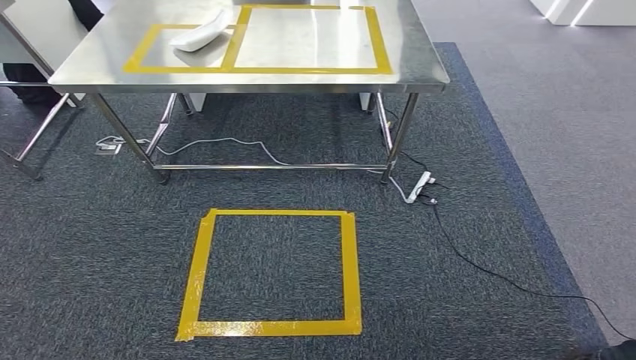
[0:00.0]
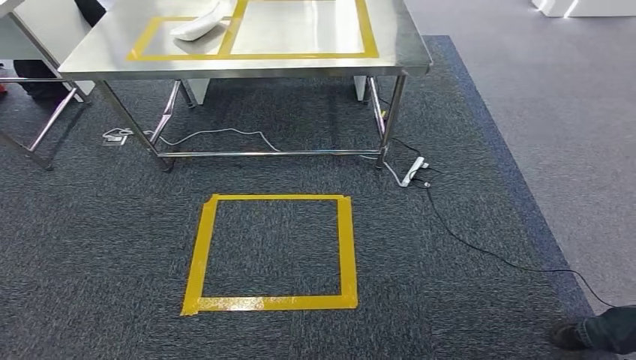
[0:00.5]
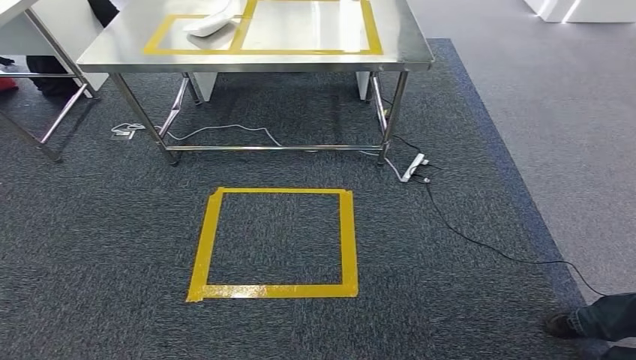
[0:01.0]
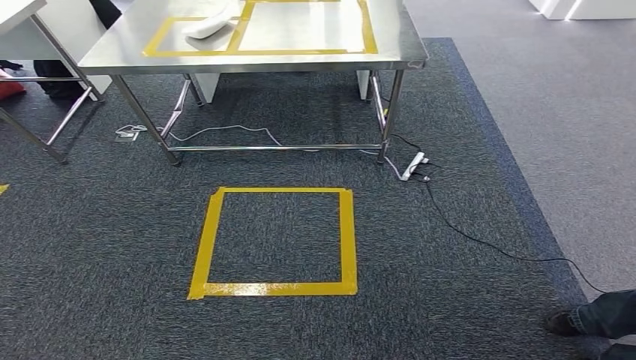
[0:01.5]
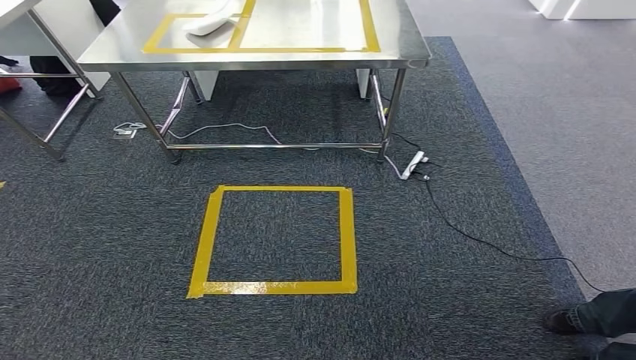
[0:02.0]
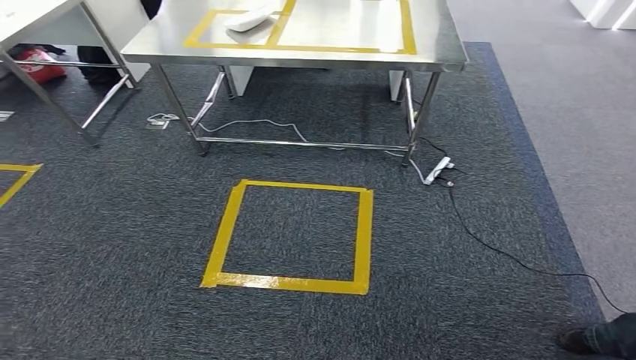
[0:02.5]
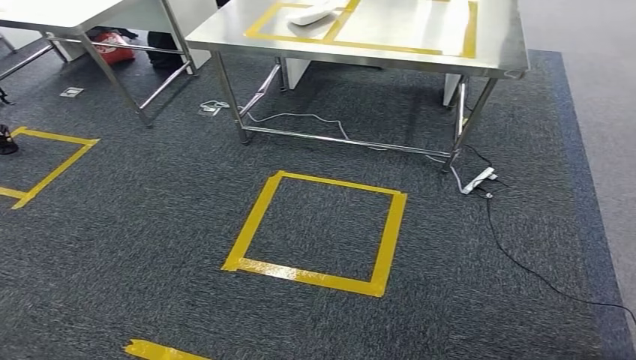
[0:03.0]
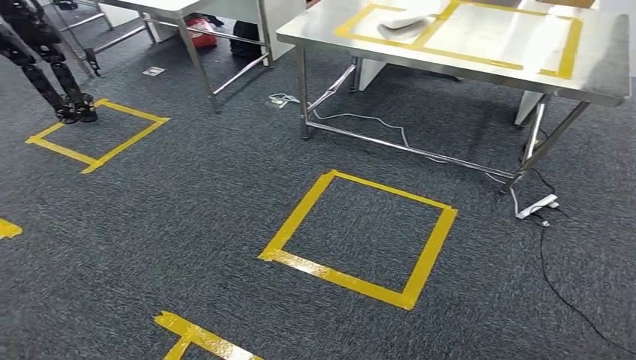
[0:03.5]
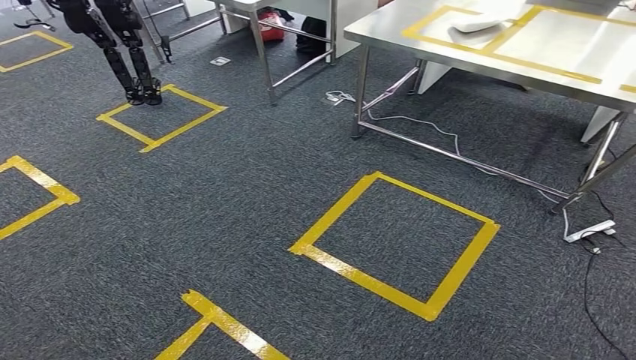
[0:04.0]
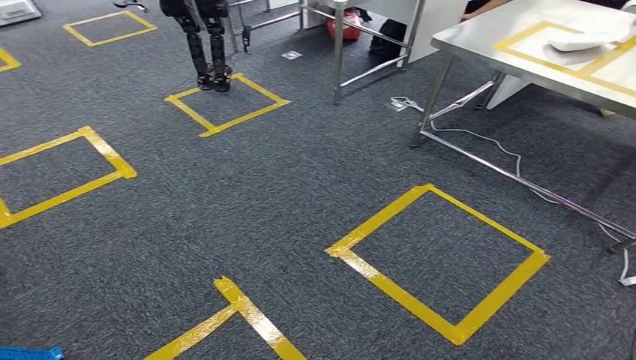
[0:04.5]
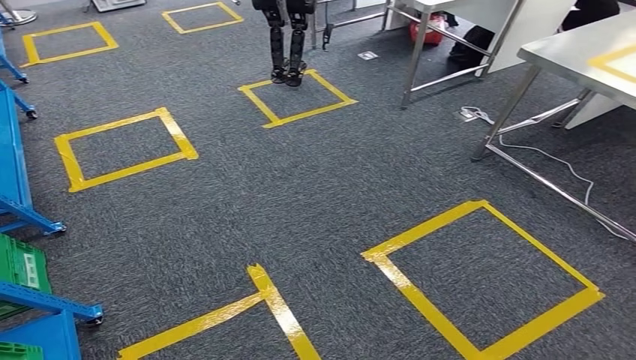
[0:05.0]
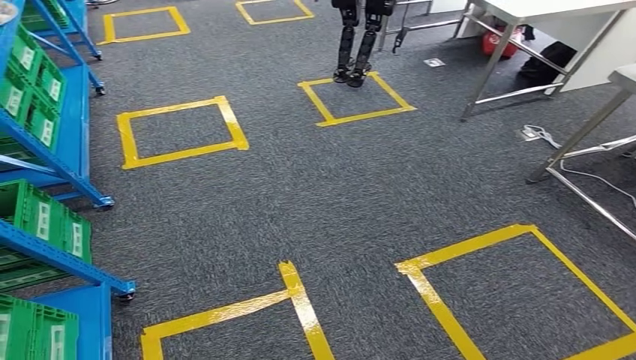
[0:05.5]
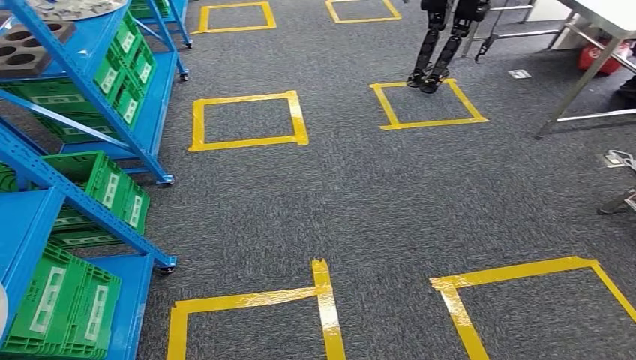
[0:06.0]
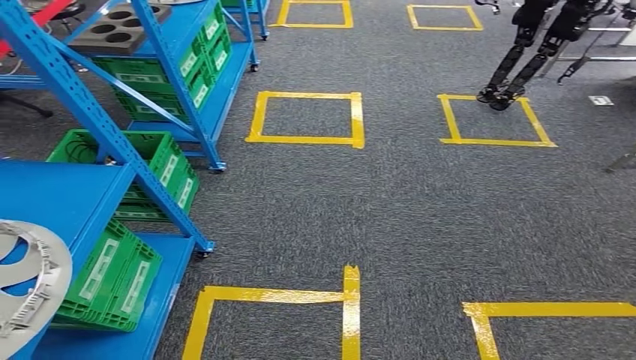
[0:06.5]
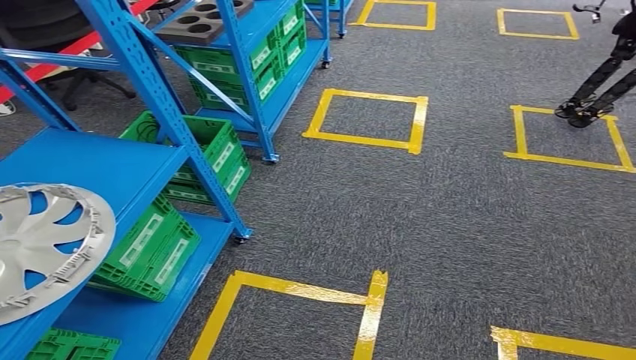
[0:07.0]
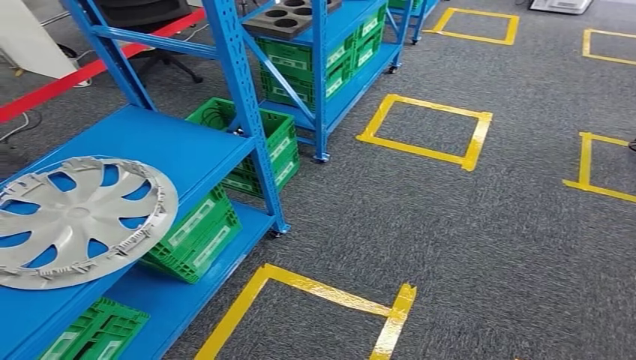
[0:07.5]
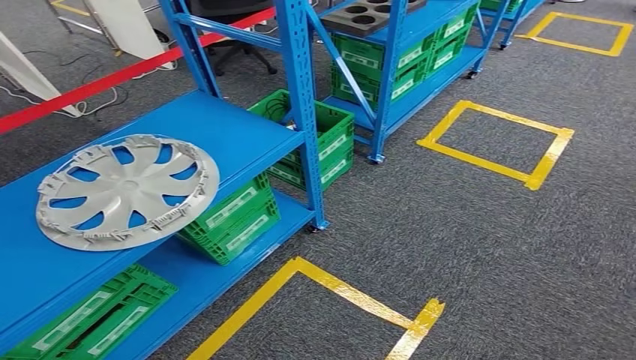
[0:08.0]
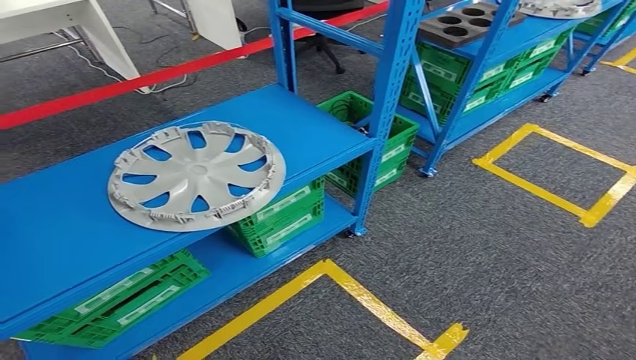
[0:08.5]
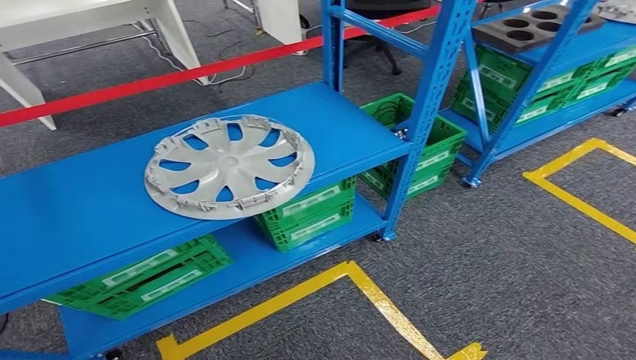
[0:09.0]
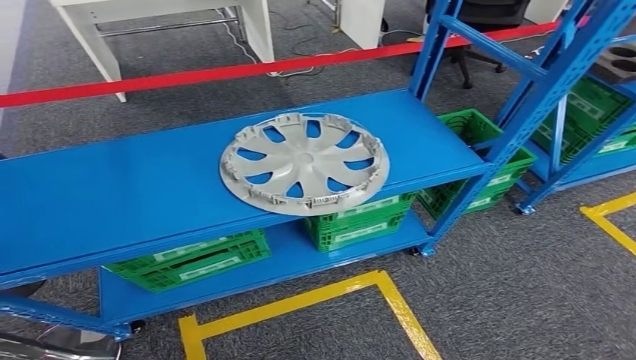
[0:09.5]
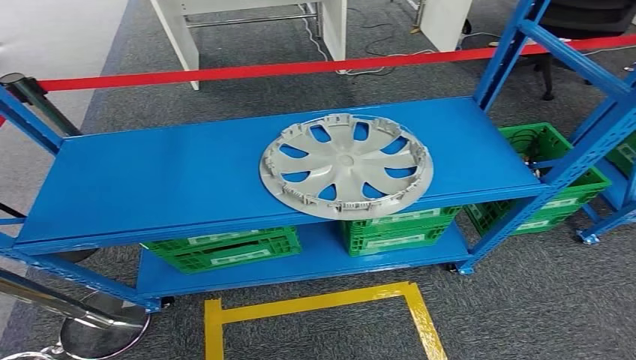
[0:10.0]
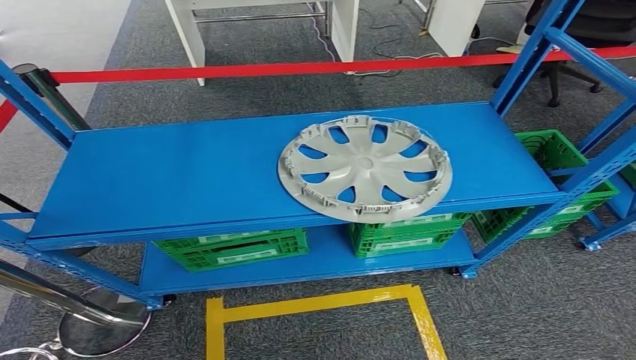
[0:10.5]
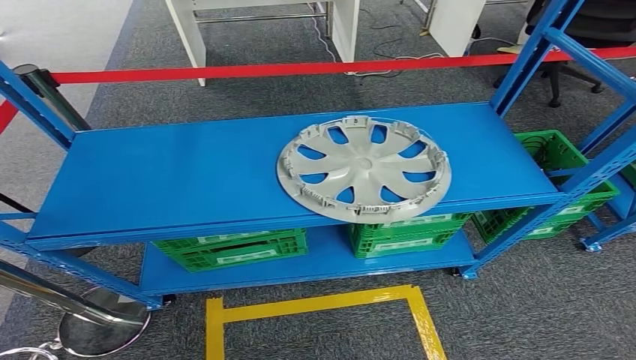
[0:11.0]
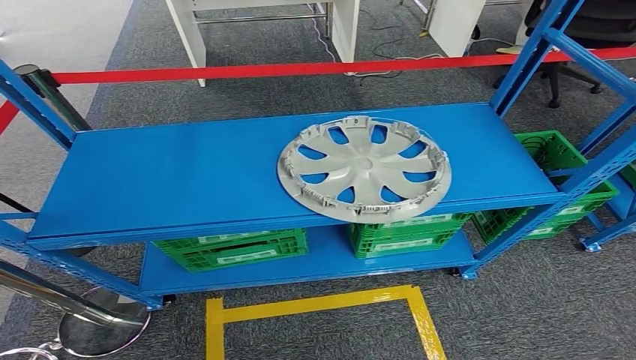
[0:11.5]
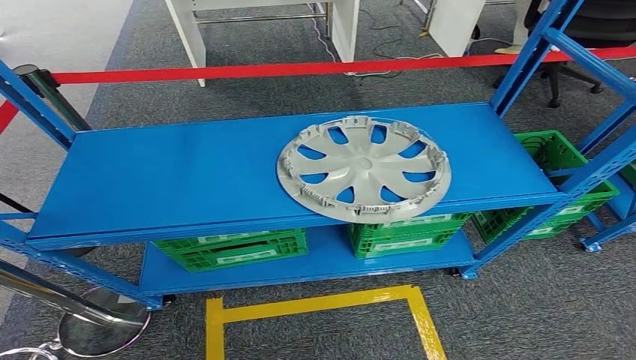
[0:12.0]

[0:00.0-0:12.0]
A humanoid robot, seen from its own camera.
Step, 0:00.0 to 0:12.0: Move to the initial position at the workbench.
